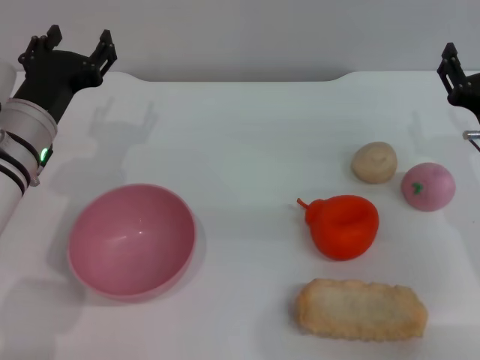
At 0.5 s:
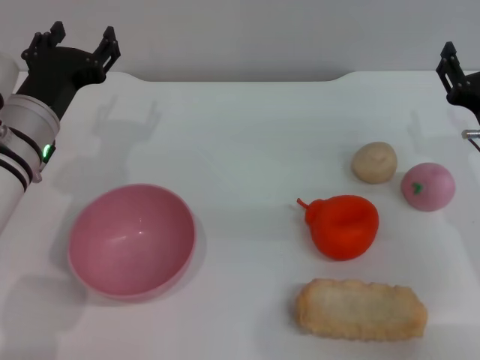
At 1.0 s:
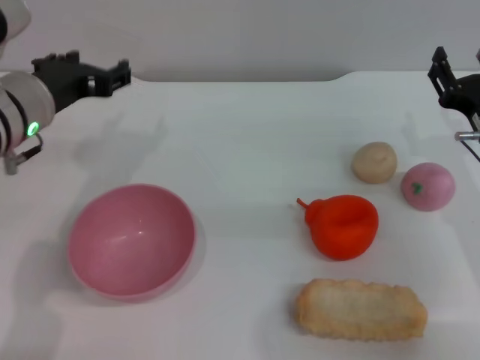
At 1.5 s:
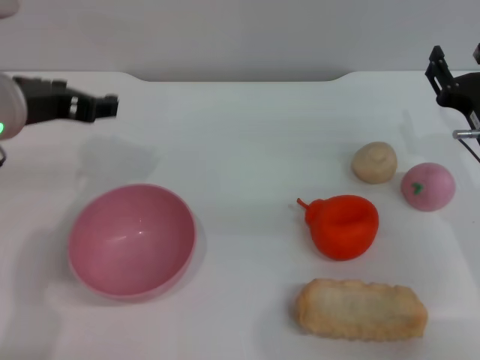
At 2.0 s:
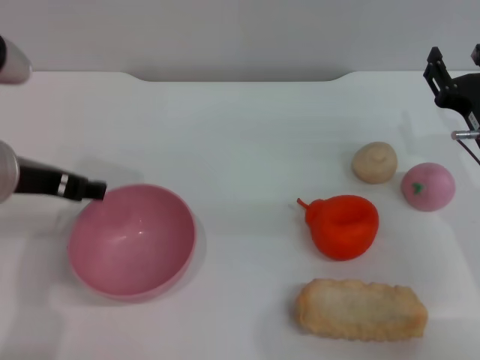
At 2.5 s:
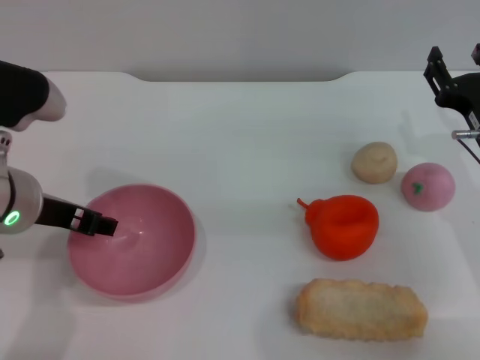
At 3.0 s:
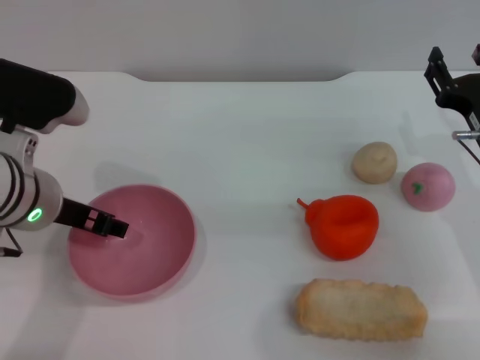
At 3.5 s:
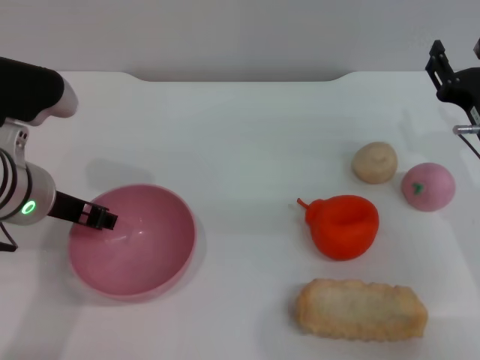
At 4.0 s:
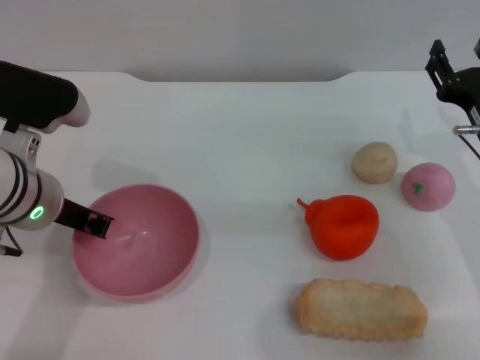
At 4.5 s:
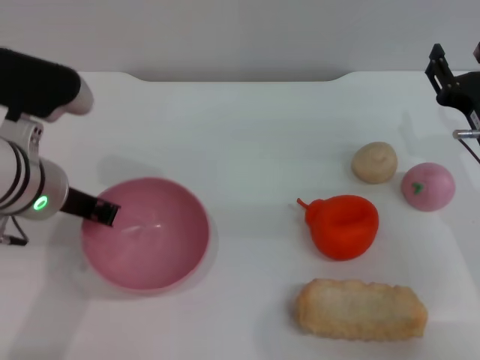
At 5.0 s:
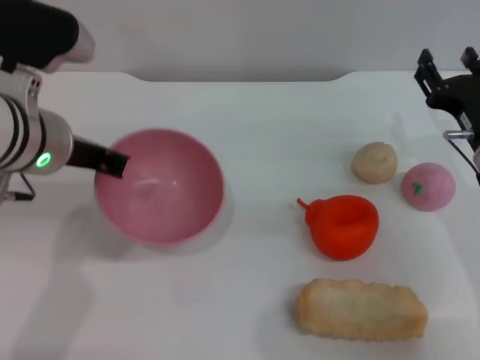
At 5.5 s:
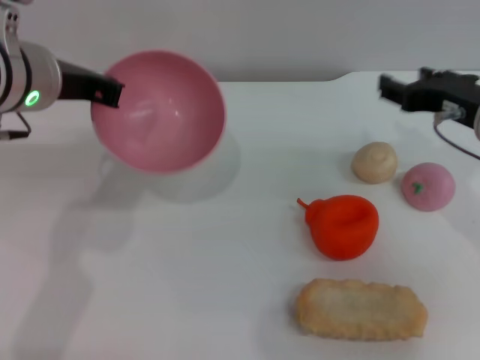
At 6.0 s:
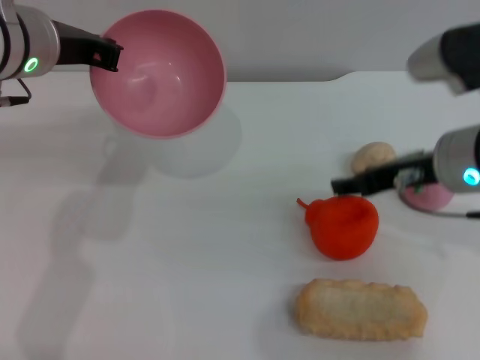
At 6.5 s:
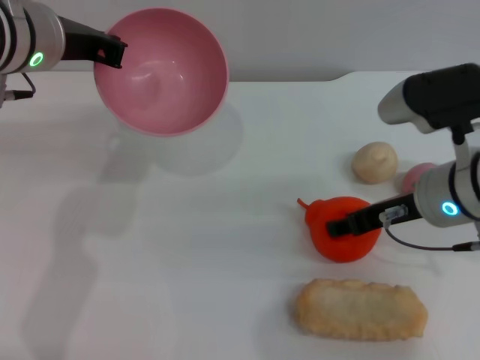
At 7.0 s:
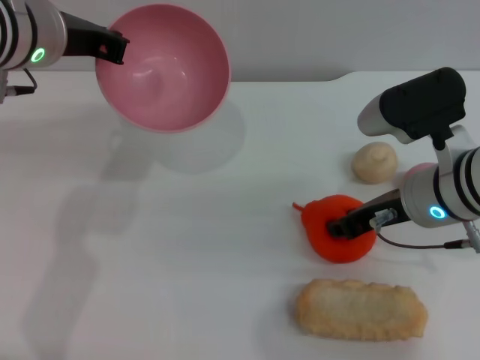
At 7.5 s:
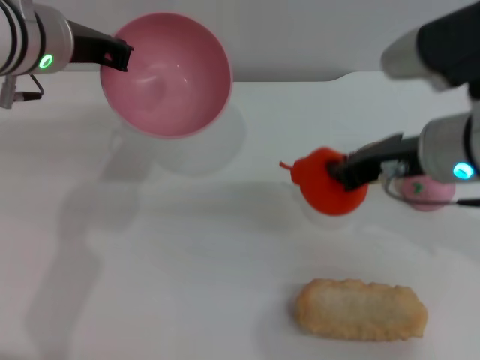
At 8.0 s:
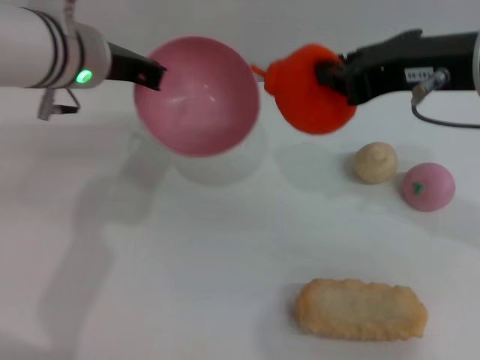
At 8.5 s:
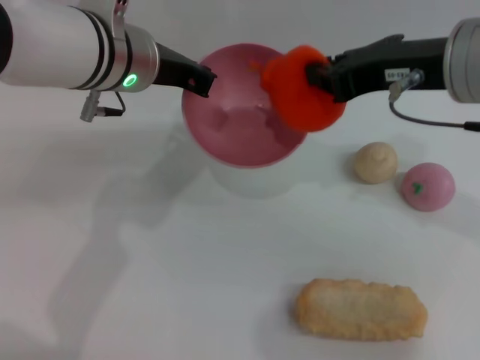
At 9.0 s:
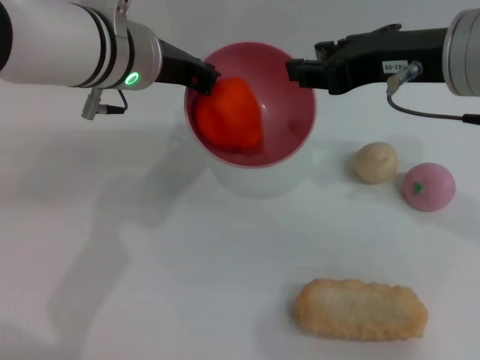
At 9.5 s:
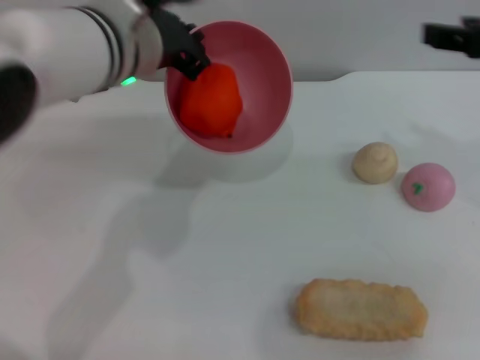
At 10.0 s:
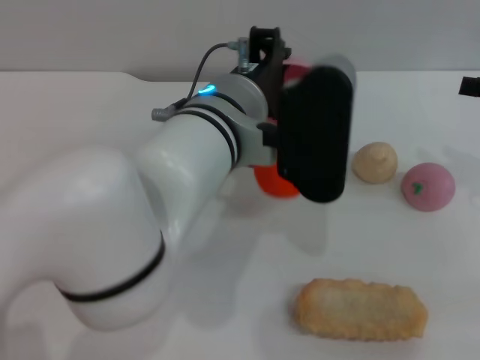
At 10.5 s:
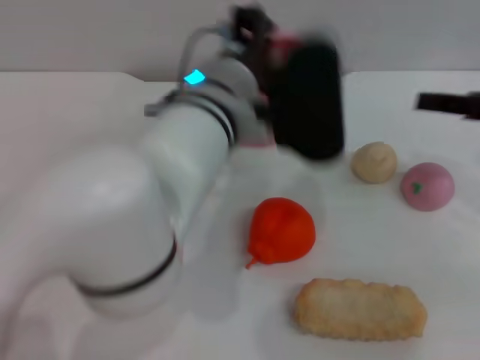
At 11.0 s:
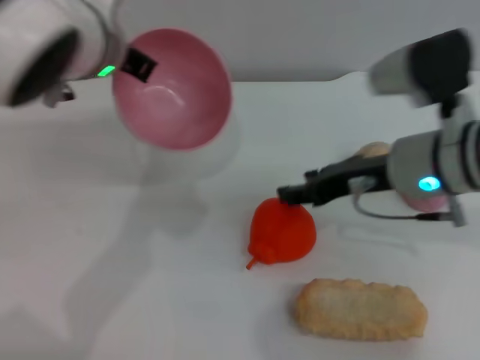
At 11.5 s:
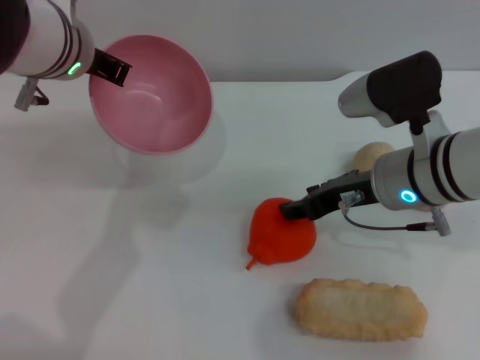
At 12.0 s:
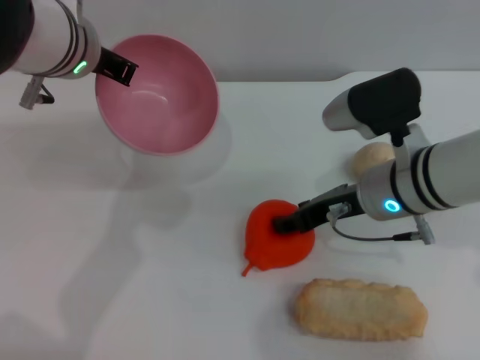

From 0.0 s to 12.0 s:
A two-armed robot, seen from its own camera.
Task of the whole recording: put the orange into the pink bowl and pour it out repeatedly.
Step, from 0.0 s to 5.0 s: Pick up the bowl with the left gripper.
Step, from 5.5 s to 7.5 s: Pick up the orange with the right gripper.
Step, from 8.0 s to 9.0 s: Place the orange into the bowl.
Step, from 9.5 s to 10.5 s: Pour the orange out of the bowl.
From 0.0 s to 2.0 s: The left gripper goes approximately 10 cm upward and backward.
From 2.0 s to 4.0 s: The left gripper ends up approximately 5 cm from where it was, and closes up.
From 4.0 s to 6.0 s: The left gripper travels upward and forward by approximately 10 cm. Meanwhile the right gripper travels upward and to the left by some 10 cm.
From 6.0 s to 8.0 s: The right gripper shifts roughly 10 cm upward, and closes its fingers.
From 8.0 s to 10.0 s: The right gripper heads to the right and downward, covering roughly 15 cm, and opens up, while the left gripper moves to the right and backward, about 15 cm.
From 10.0 s to 12.0 s: The left gripper moves to the left and forward, roughly 15 cm. The right gripper shifts some 20 cm to the left and downward.

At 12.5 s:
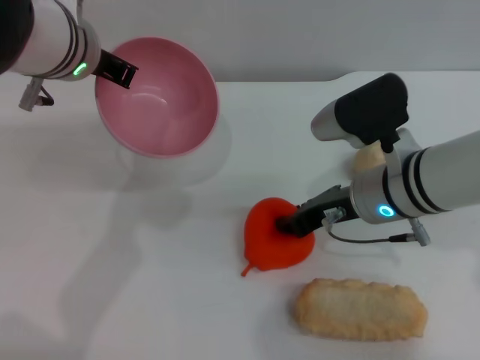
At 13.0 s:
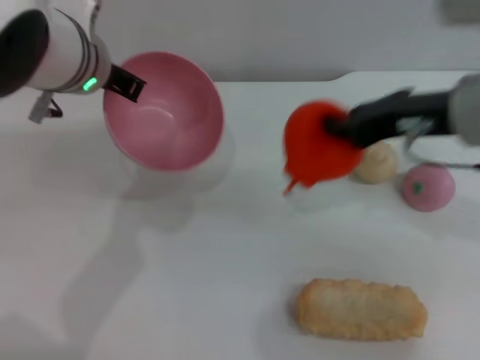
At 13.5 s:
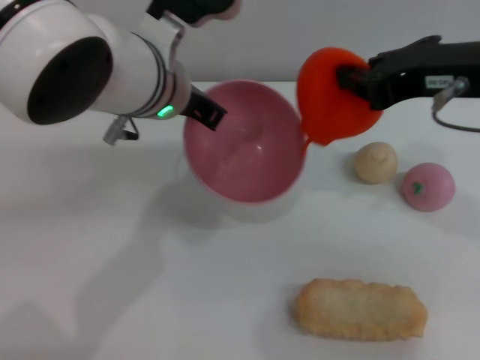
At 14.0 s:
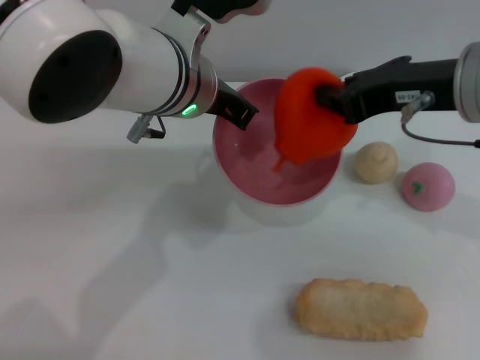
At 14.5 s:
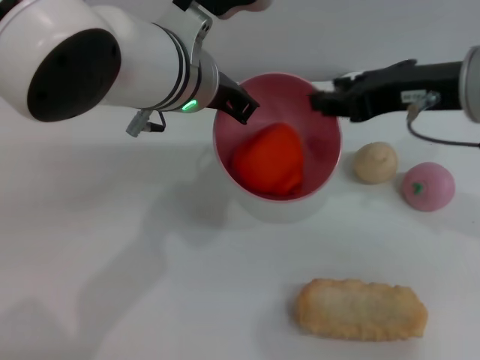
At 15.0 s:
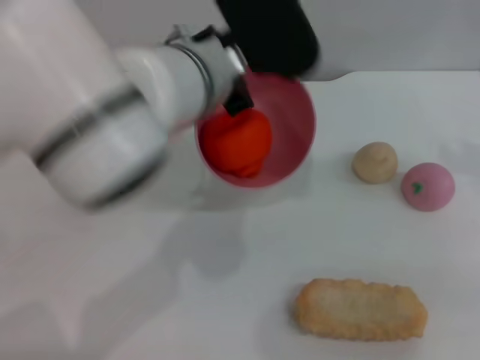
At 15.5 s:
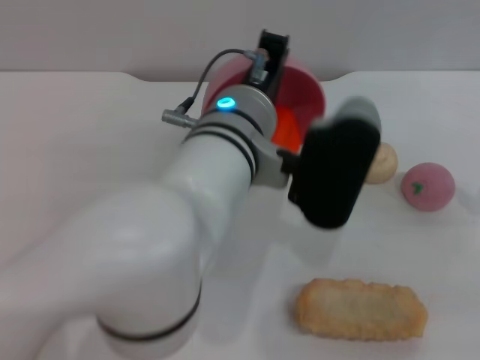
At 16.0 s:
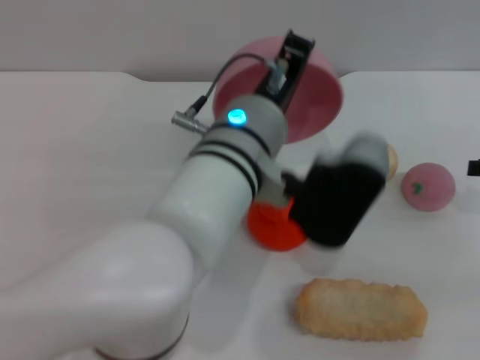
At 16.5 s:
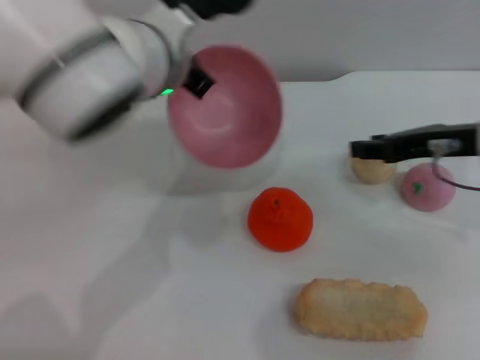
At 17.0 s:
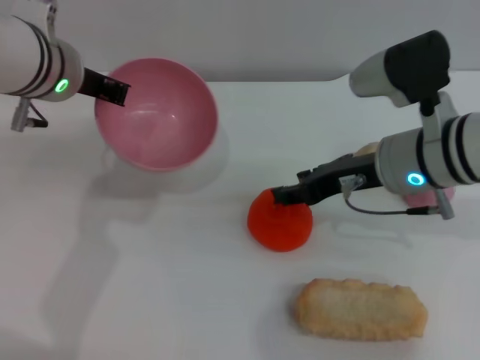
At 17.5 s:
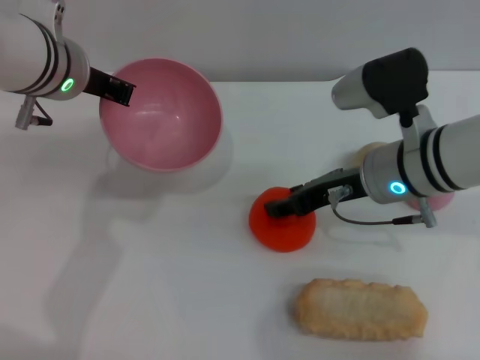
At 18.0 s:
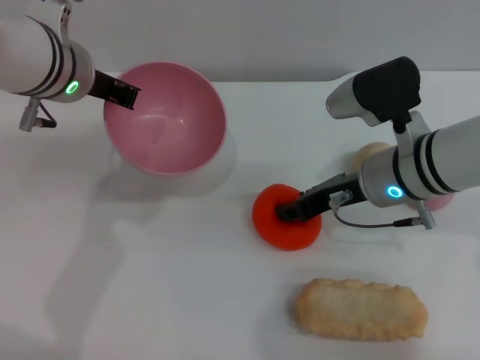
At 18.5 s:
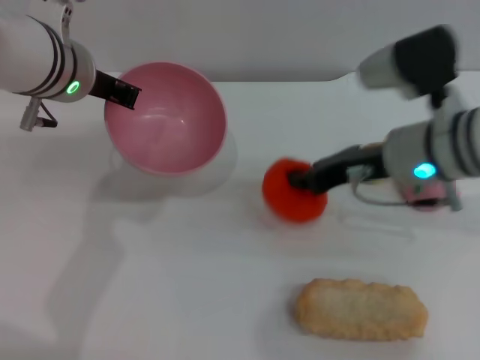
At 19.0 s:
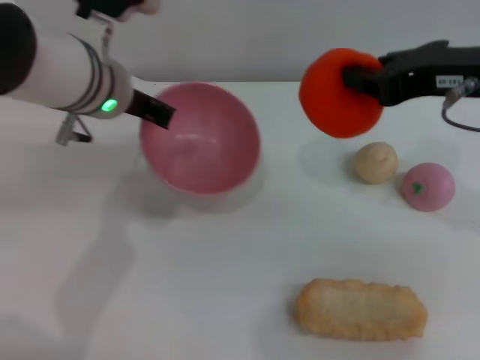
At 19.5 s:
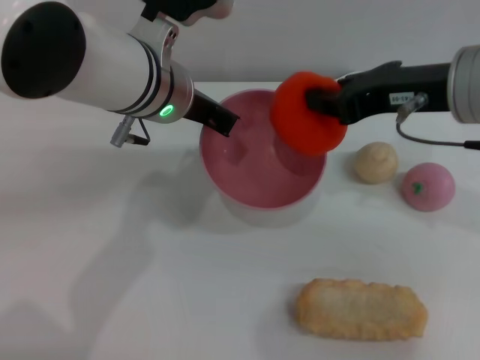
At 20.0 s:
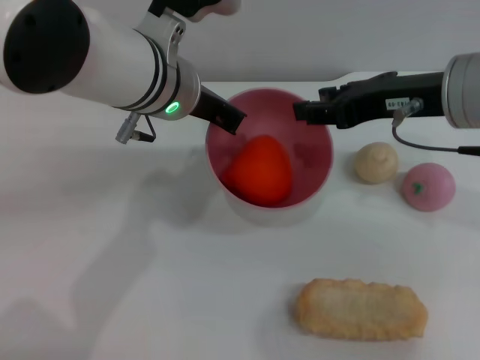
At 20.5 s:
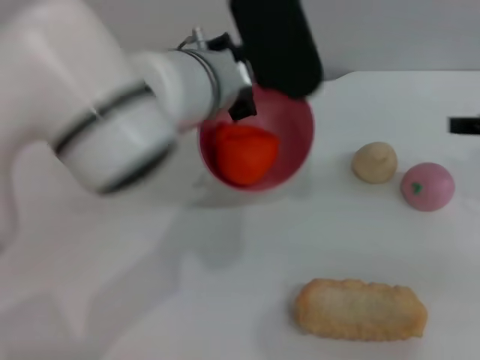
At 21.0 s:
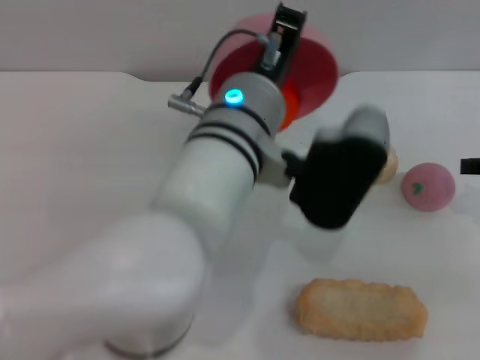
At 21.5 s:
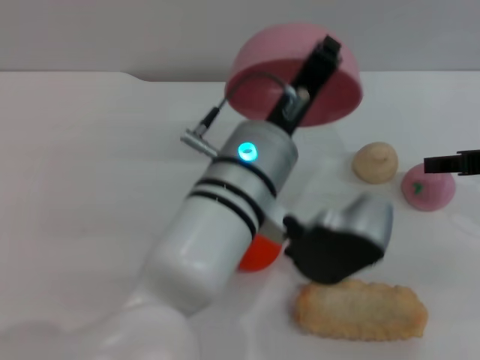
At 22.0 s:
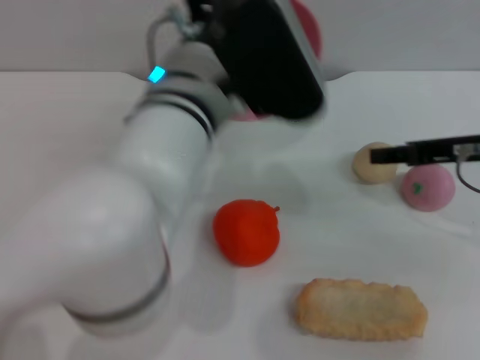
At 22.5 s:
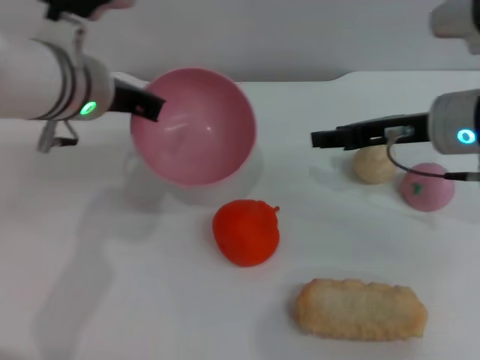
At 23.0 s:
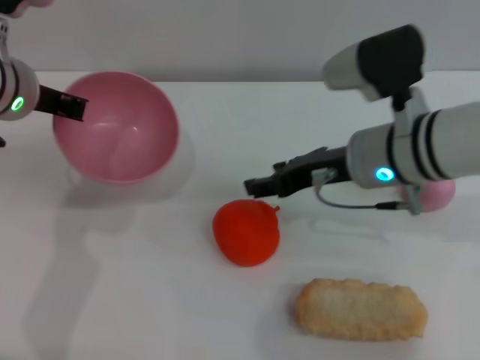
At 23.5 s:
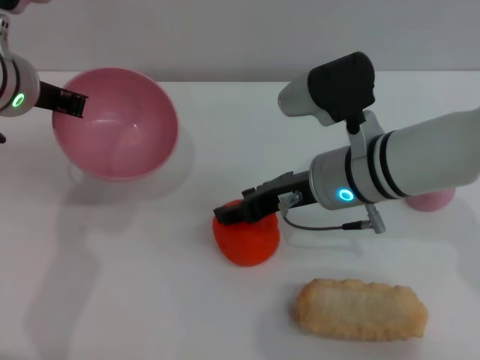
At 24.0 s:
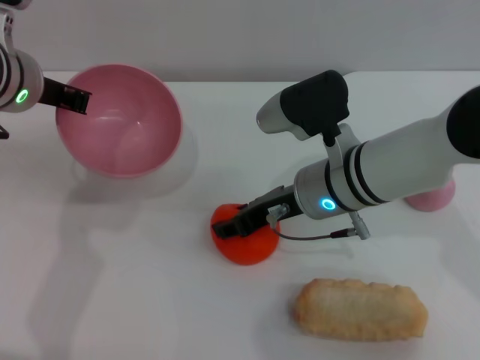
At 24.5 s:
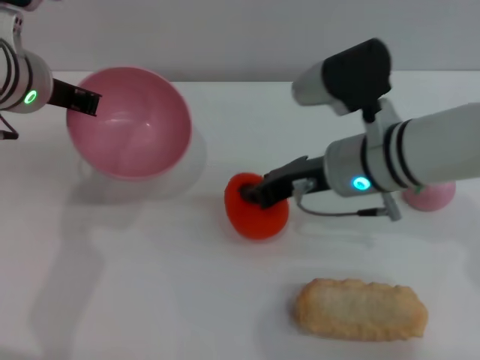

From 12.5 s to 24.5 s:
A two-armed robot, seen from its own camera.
Task of the whole recording: put the orange into the pink bowl and pour it out repeatedly.
Step, from 13.0 s to 14.5 s: Place the orange into the bowl.
Step, from 15.0 s to 15.5 s: Pour the orange out of the bowl.
Step, from 16.0 s to 18.5 s: Pick up the orange with the right gripper.
Step, from 19.0 s to 20.0 s: Place the orange into the bowl.
Step, from 20.5 s to 21.5 s: Pour the orange out of the bowl.
From 12.5 s to 14.5 s: The right gripper travels upward by approximately 15 cm, and closes, then reopens; the left gripper is displaced to the right by approximately 10 cm.
From 14.5 s to 16.5 s: The left gripper travels backward and back again, some 5 cm each way, while the right gripper goes some 10 cm downward, and moves approximately 15 cm to the right and comes back.
From 16.5 s to 18.5 s: The two grippers go approximately 10 cm to the left.
From 18.5 s to 20.5 s: The left gripper travels to the right by about 10 cm, while the right gripper heads to the right and upward, covering roughly 15 cm, and opens its fingers.
From 20.5 s to 22.5 s: Both grippers move to the left, approximately 10 cm.
From 22.5 s to 24.5 s: The right gripper goes some 10 cm to the left.

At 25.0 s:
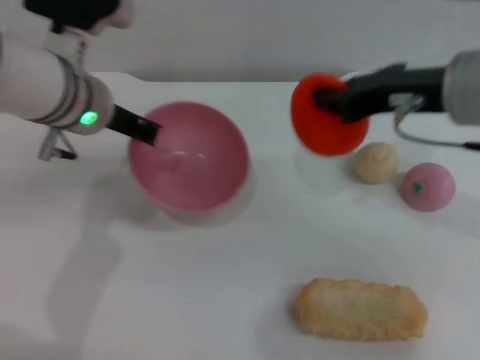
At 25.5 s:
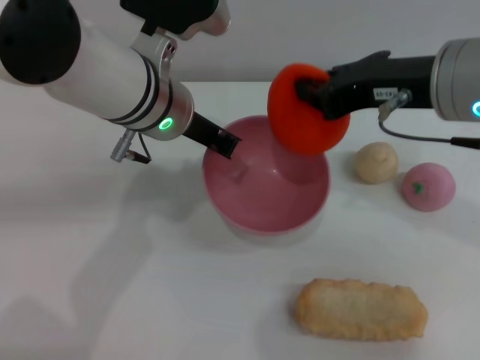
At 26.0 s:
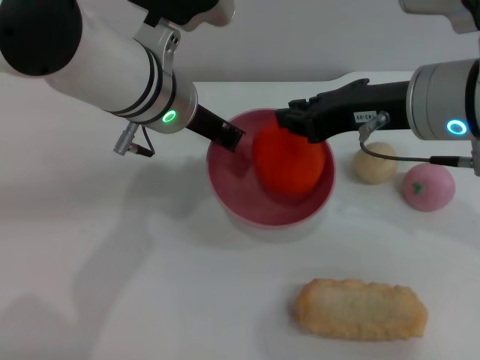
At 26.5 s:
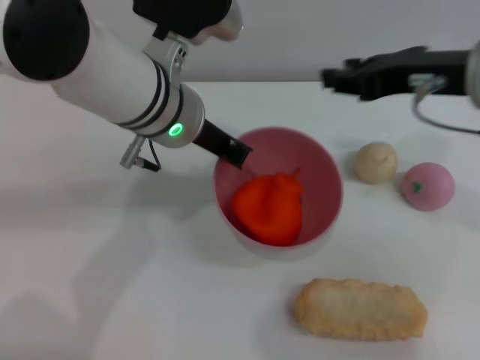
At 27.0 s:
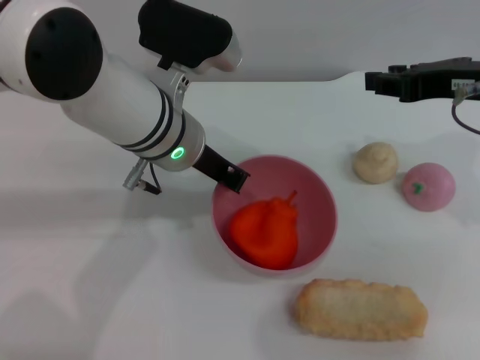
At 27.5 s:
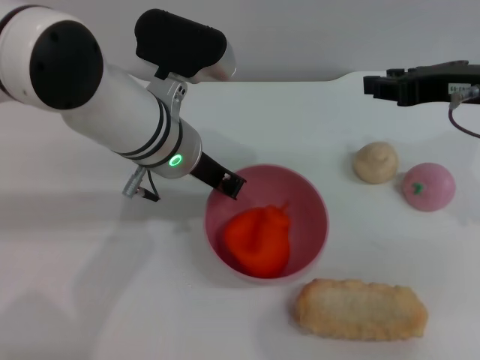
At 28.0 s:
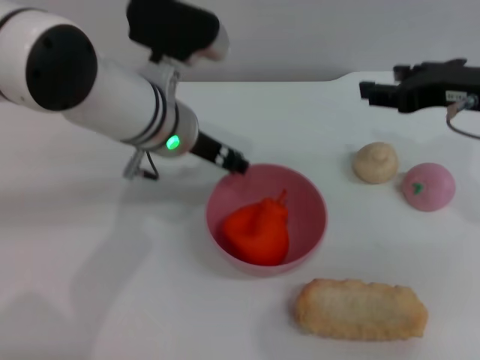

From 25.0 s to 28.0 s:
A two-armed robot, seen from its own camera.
Task of the whole recording: put the orange into the pink bowl and pour it out repeatedly.
Step, from 25.0 s to 26.0 s: Place the orange into the bowl.
From 25.0 s to 26.5 s: The right gripper opens its fingers; the left gripper heads to the right, covering roughly 10 cm.
From 26.5 s to 28.0 s: The right gripper changes place by approximately 5 cm, while the left gripper opens.
